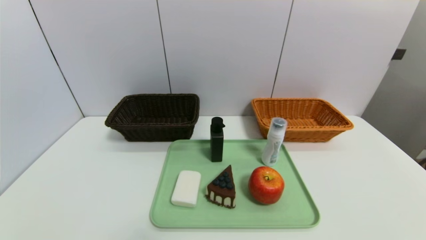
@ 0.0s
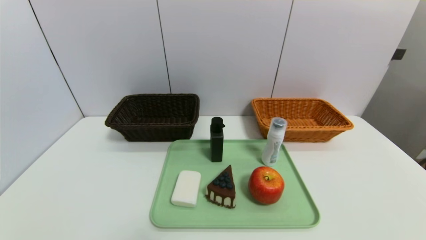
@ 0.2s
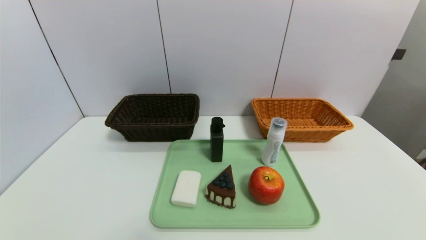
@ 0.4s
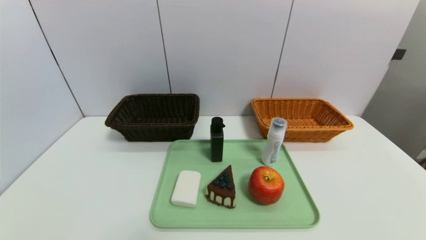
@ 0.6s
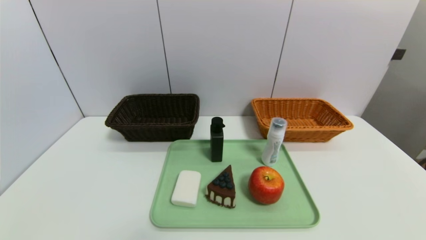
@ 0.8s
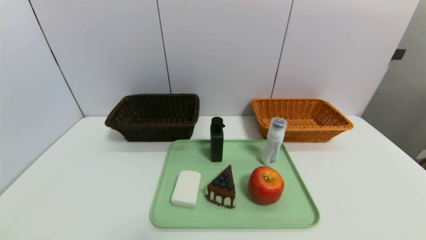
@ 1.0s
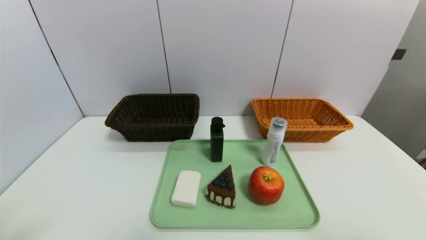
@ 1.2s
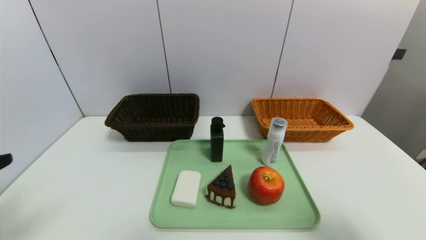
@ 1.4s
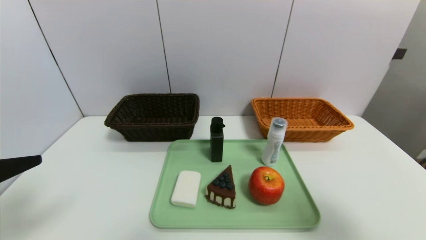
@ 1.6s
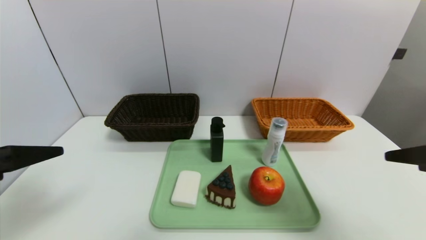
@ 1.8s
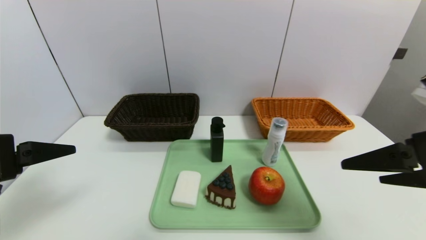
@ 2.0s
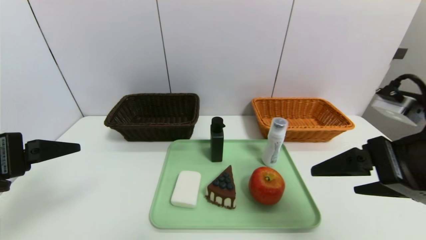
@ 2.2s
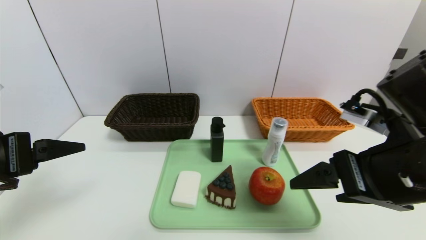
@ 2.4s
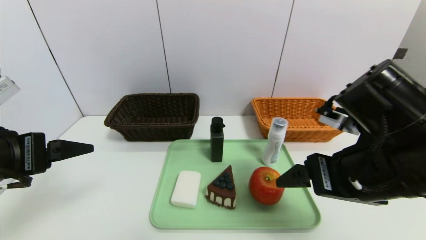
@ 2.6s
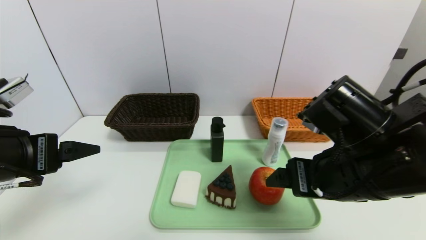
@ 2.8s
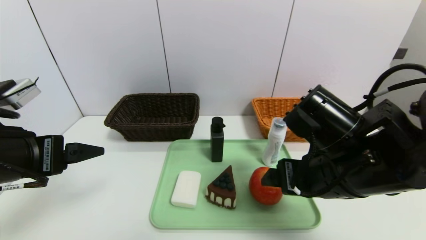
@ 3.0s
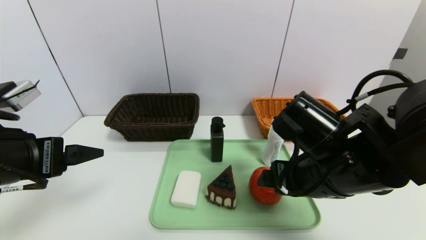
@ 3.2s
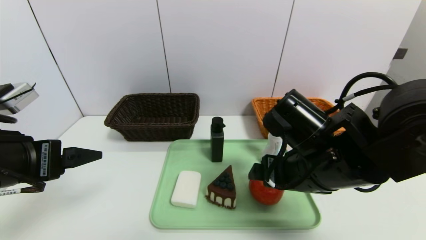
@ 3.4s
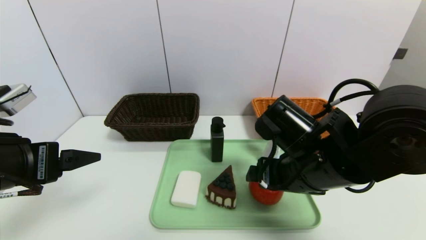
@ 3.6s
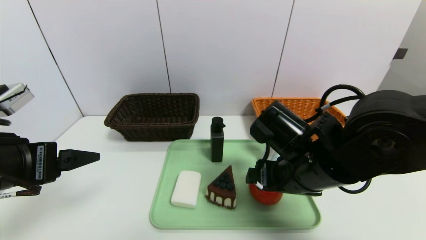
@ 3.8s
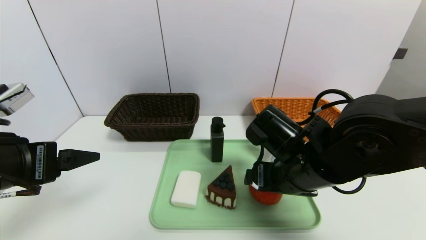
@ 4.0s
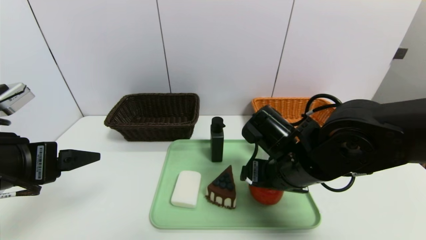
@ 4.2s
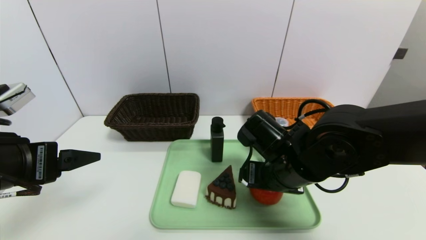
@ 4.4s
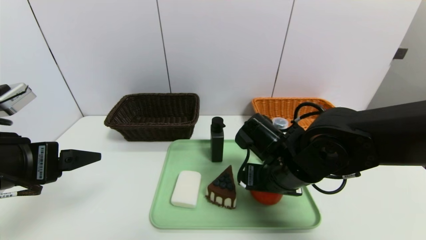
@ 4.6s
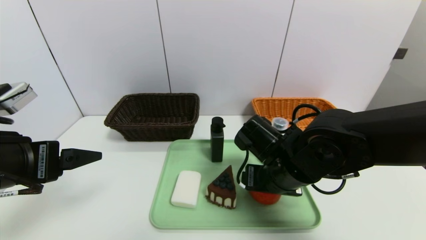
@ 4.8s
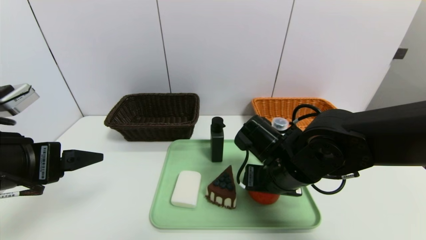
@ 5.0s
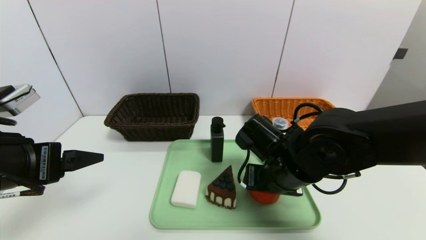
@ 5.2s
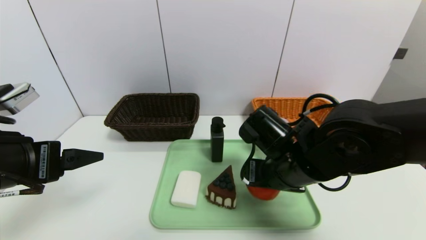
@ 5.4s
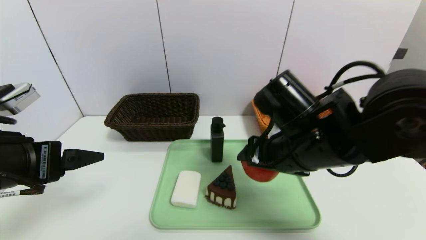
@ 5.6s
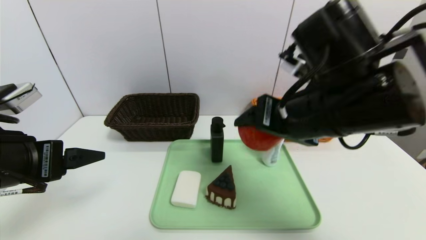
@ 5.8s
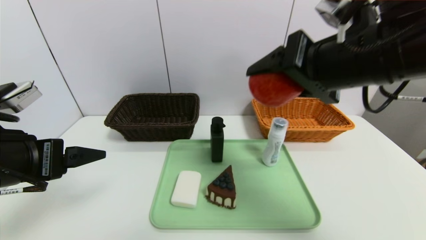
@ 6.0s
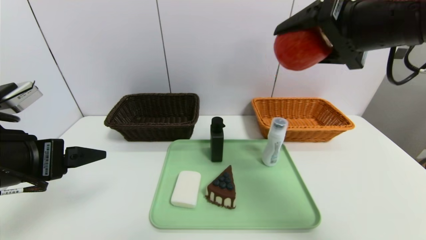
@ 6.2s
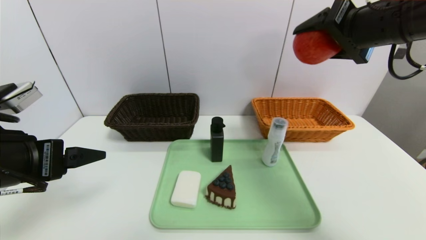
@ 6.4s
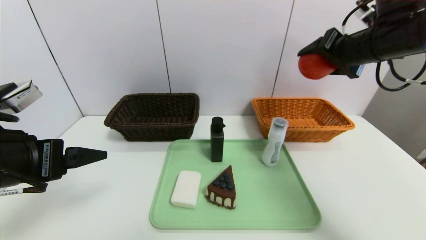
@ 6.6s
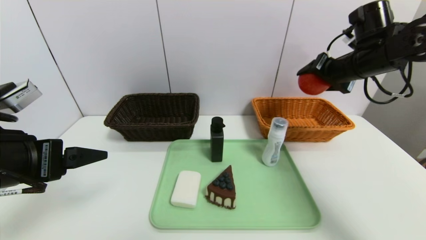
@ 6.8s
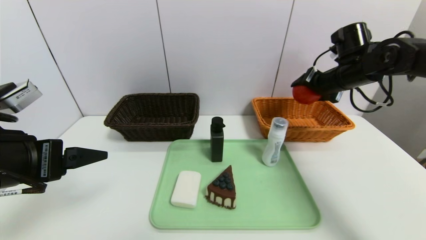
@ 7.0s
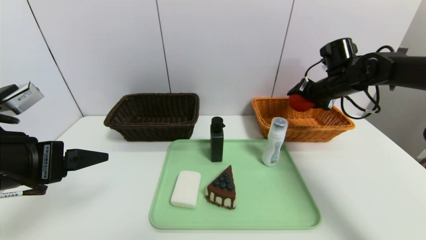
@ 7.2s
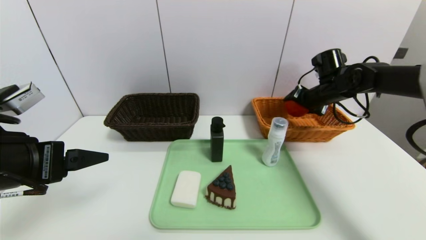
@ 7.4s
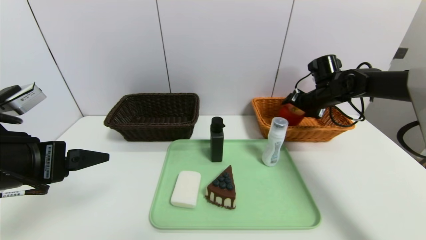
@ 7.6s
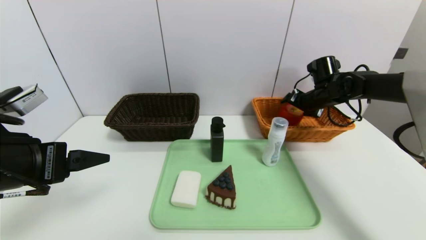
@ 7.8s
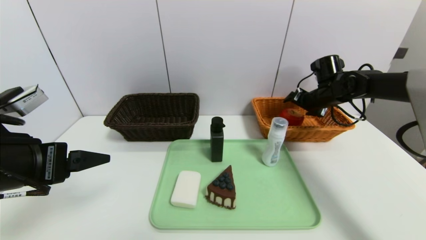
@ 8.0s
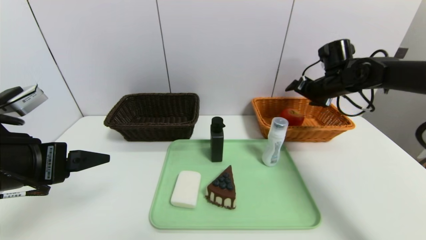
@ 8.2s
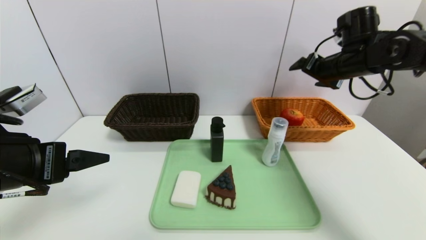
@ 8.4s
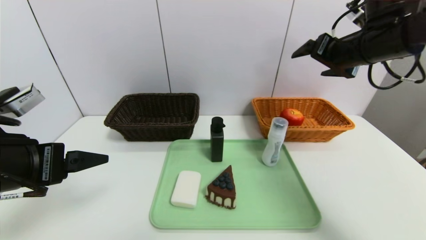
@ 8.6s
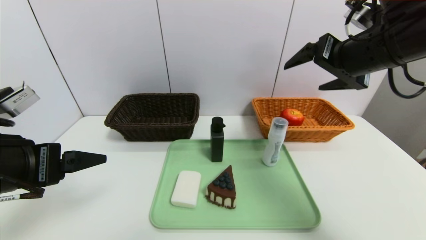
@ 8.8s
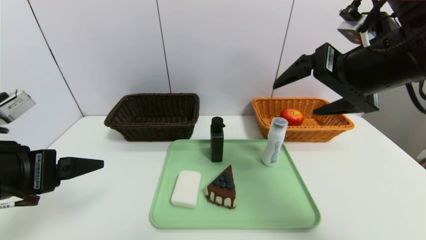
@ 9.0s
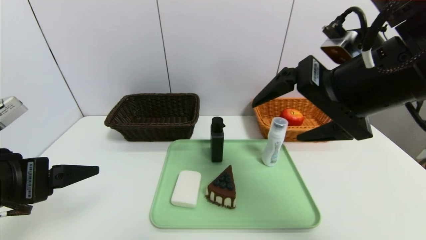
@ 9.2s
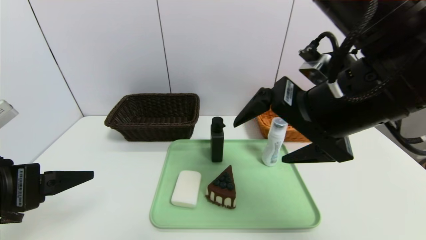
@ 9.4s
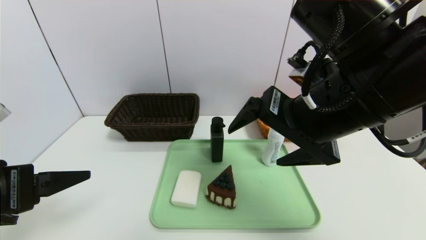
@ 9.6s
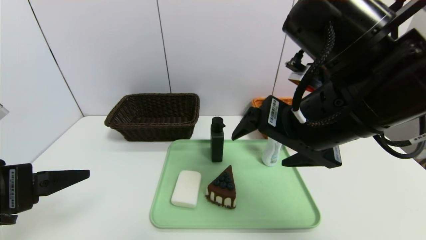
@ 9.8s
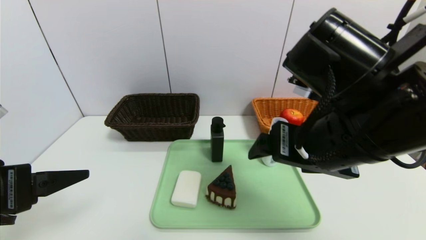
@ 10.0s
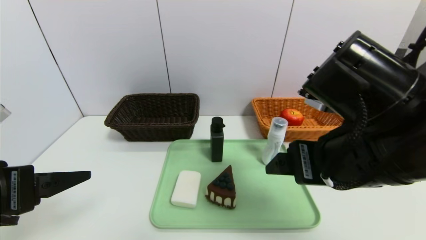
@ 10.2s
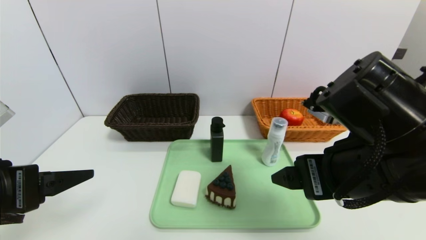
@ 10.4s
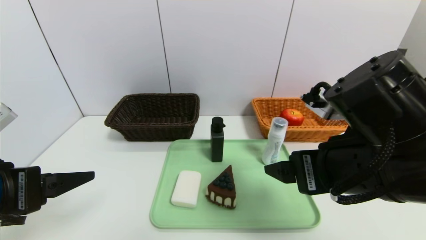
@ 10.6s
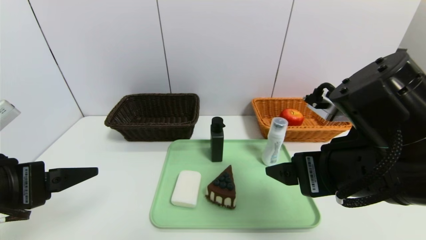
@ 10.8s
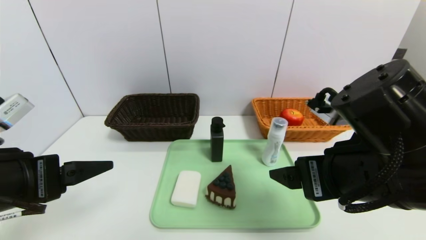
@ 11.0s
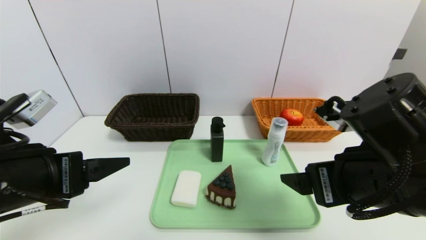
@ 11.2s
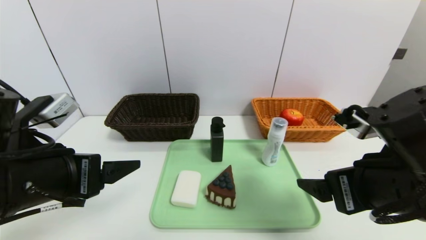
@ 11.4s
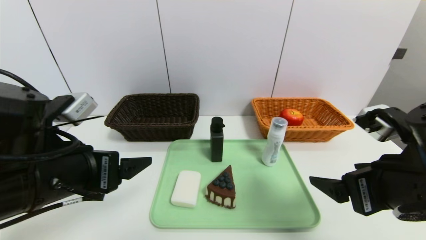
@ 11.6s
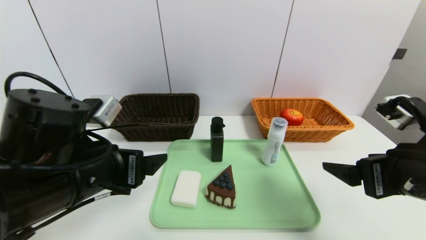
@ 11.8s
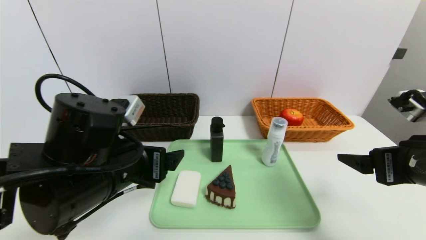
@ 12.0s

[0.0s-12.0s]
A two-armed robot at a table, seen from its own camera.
Task of the whole recording: place the food in the right basket with the right gripper, and place the non food items in the left basket with the left gripper.
Step, 0.0s to 8.0s: Grasp the apple and put it in the right basket.
0.0s to 1.6s: The grippers both shift upward and forward by roughly 25 cm.
1.6s to 3.0s: The right gripper moves to the left, forward and downward, approximately 20 cm; the left gripper moves forward, approximately 5 cm.
3.0s to 4.4s: The right gripper goes some 10 cm downward and forward.
4.4s to 6.0s: The right gripper shifts approximately 20 cm upward, and closes its fingers.
6.0s to 7.6s: The right gripper moves forward, downward and to the right, approximately 30 cm.
7.6s to 9.0s: The right gripper heads backward and upward, covering approximately 30 cm.
9.0s to 10.4s: The right gripper travels downward and backward by approximately 10 cm.
10.4s to 12.0s: The left gripper shifts roughly 15 cm to the right and forward; the right gripper heads to the right, covering approximately 10 cm.

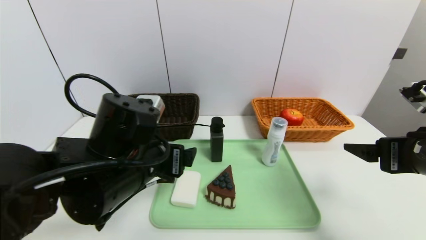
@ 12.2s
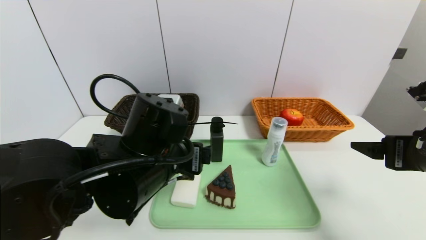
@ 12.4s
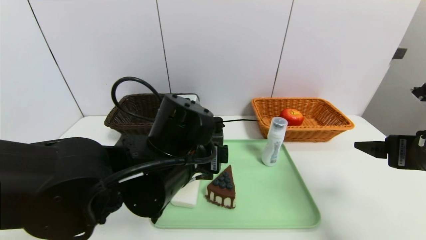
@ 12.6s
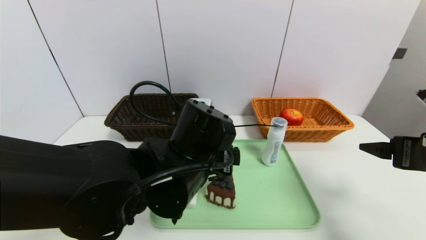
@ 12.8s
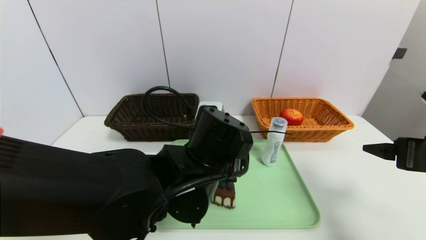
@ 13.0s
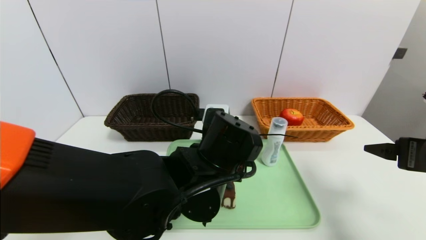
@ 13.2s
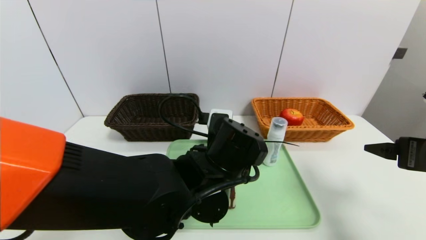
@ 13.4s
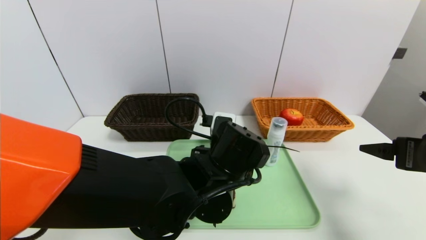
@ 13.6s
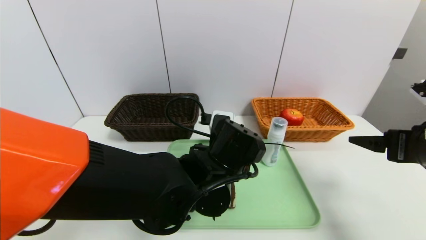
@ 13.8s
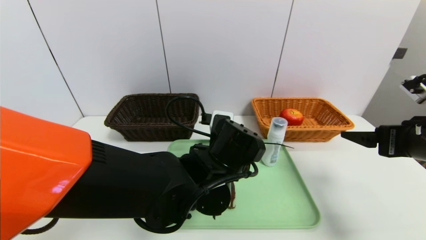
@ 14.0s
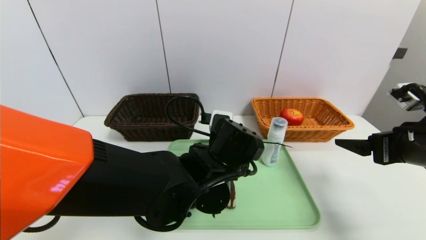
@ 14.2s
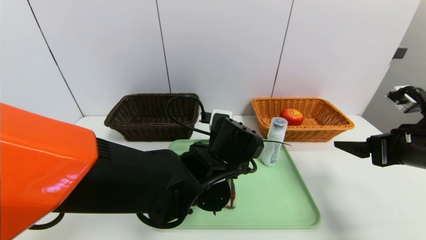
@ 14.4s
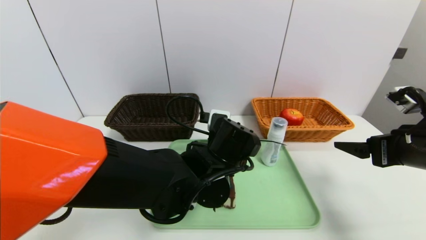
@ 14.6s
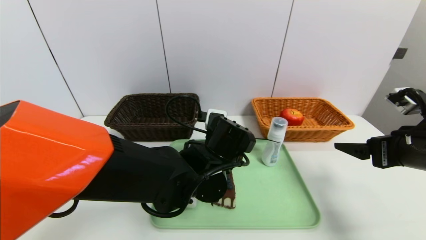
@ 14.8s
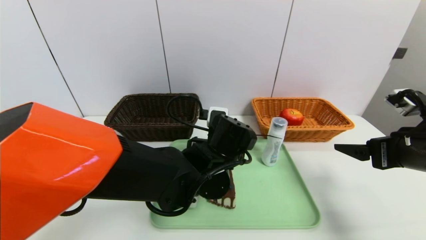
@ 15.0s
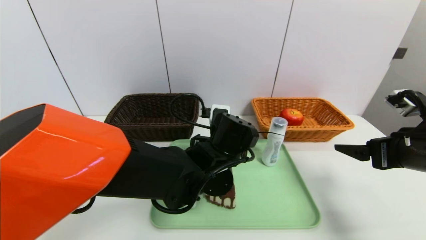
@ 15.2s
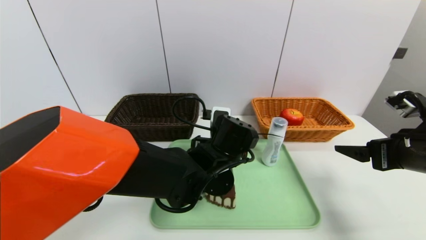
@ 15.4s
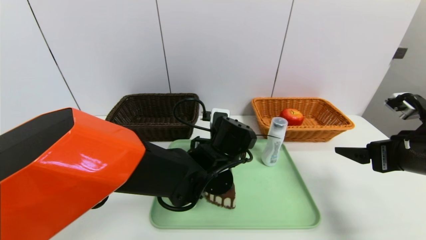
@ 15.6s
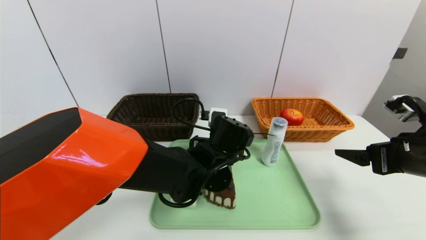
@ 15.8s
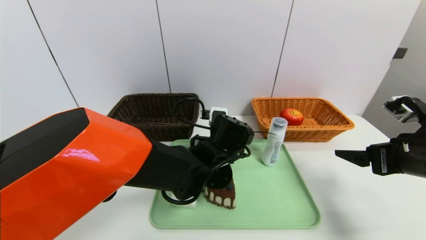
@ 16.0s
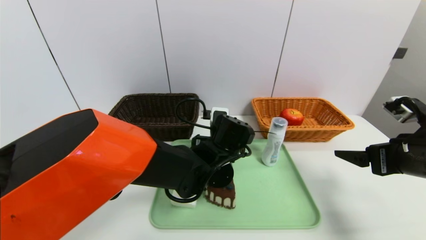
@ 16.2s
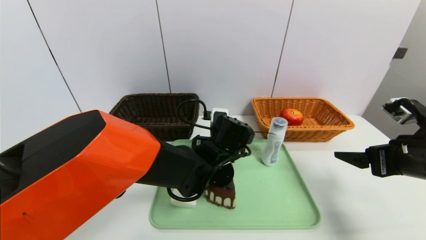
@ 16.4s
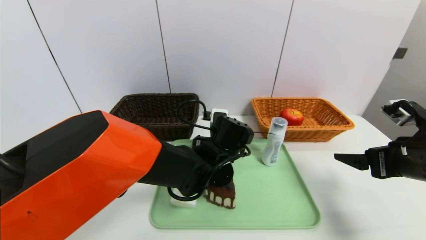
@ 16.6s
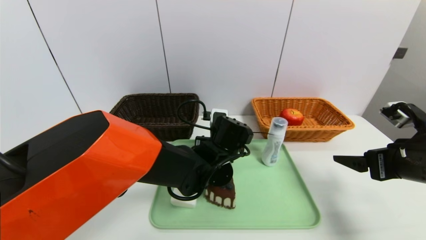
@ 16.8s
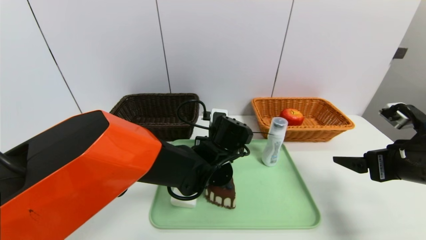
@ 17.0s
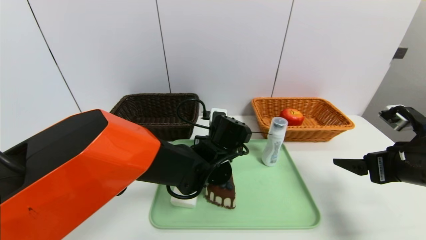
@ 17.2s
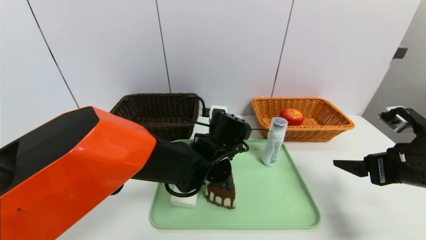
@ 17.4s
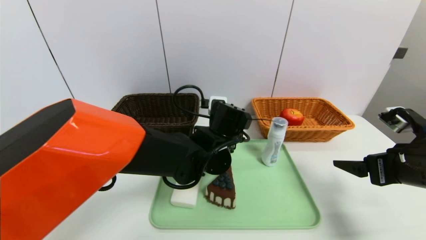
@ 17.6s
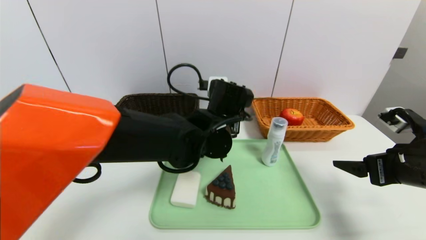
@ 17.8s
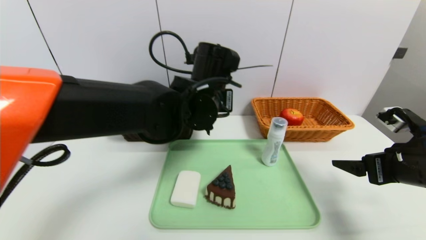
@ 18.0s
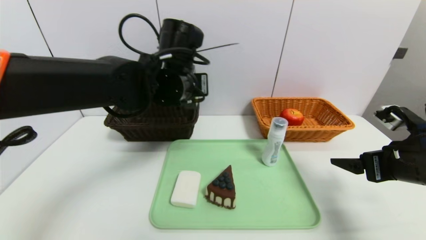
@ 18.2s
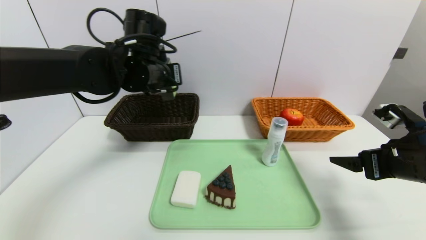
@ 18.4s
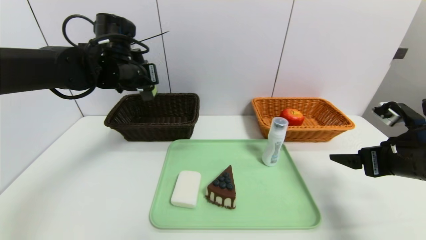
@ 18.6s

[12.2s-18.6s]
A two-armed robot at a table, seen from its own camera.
Task of the whole recording: place the food in the right basket with the right gripper, and place the non food items in the left basket with the left gripper.
12.2s to 13.8s: The left gripper moves to the right and downward, roughly 15 cm.
13.8s to 15.4s: The grippers stay close to where they were, moving slightly.
15.4s to 17.0s: The left gripper closes.
17.0s to 18.6s: The left gripper travels to the left and upward by some 25 cm.
